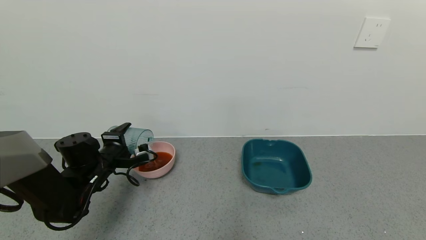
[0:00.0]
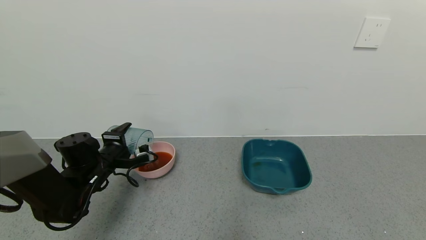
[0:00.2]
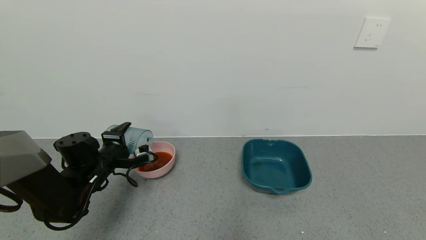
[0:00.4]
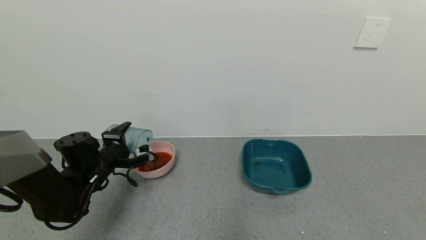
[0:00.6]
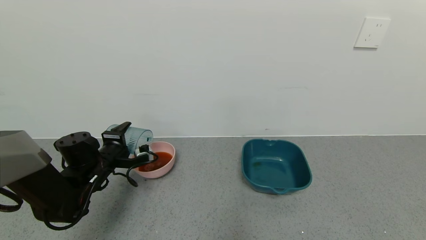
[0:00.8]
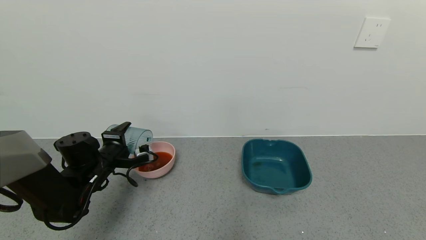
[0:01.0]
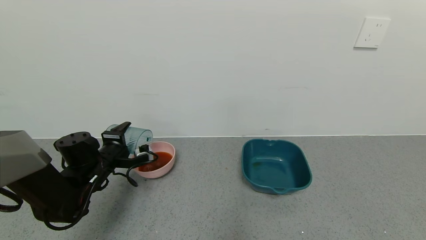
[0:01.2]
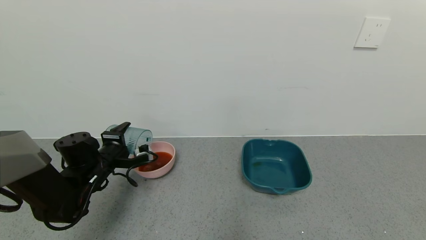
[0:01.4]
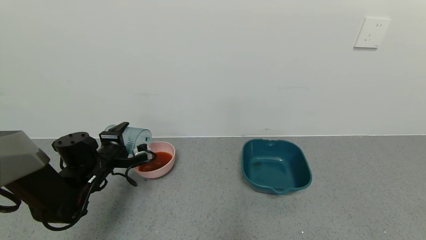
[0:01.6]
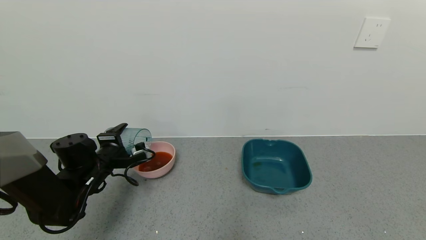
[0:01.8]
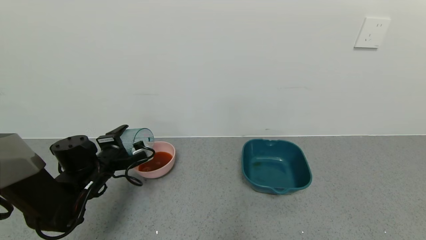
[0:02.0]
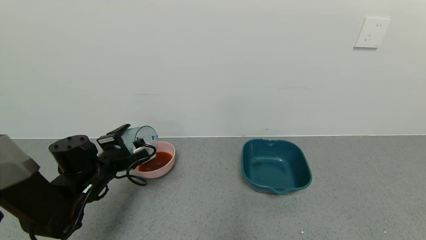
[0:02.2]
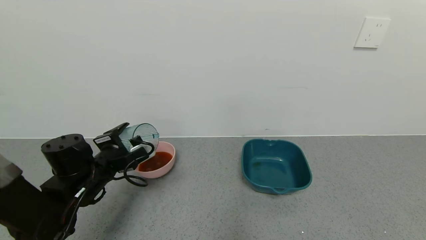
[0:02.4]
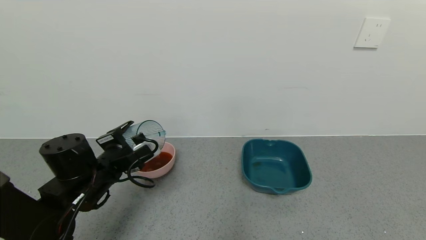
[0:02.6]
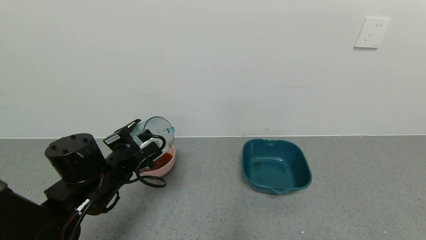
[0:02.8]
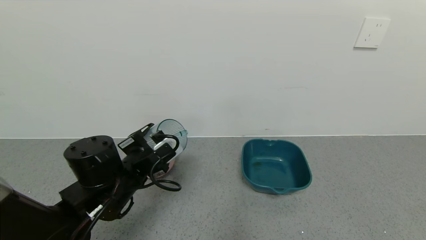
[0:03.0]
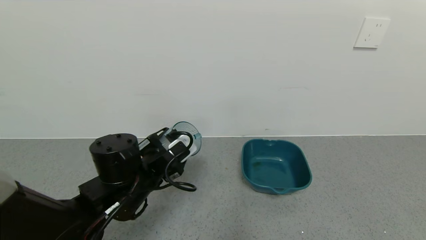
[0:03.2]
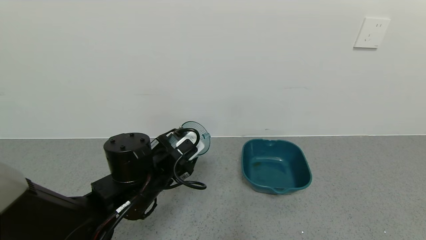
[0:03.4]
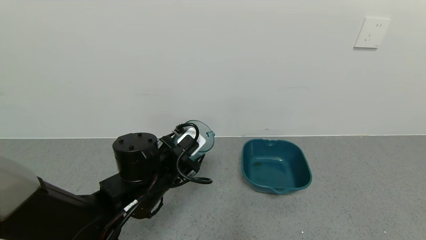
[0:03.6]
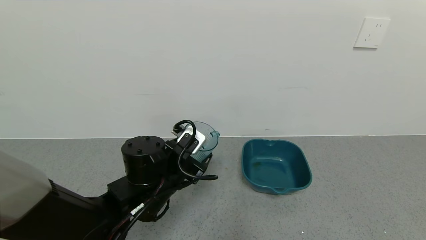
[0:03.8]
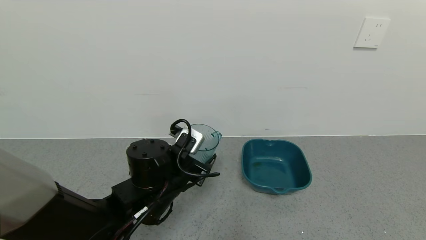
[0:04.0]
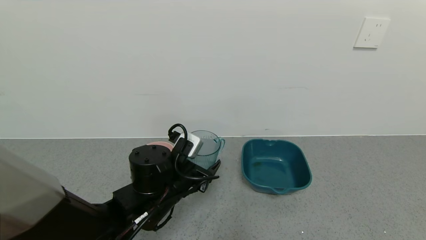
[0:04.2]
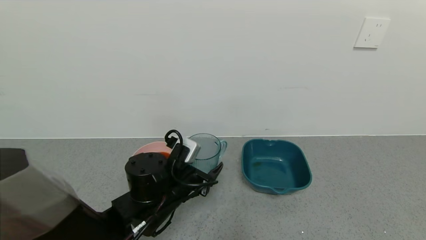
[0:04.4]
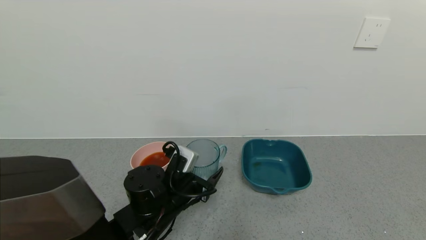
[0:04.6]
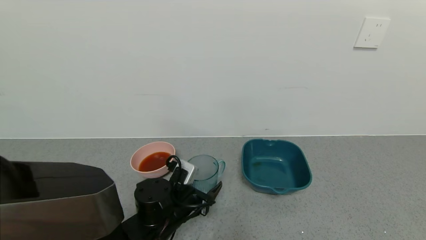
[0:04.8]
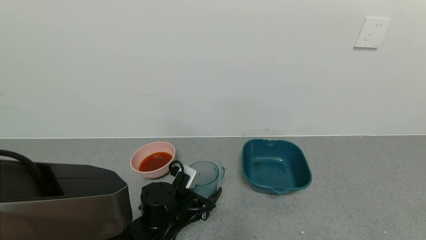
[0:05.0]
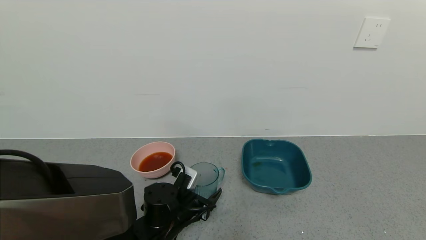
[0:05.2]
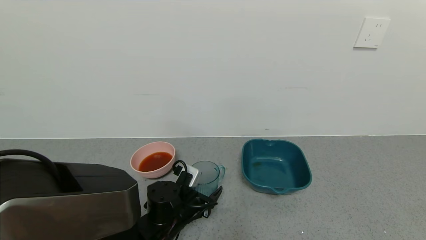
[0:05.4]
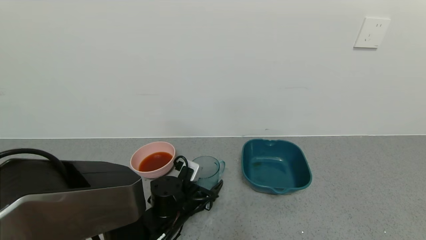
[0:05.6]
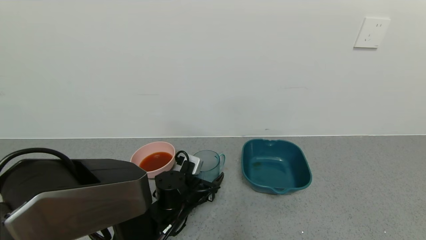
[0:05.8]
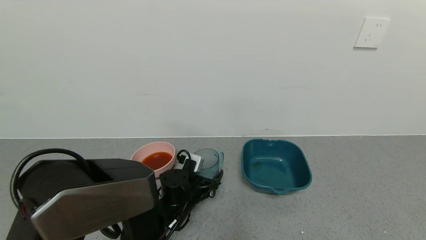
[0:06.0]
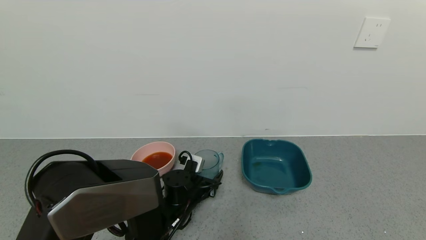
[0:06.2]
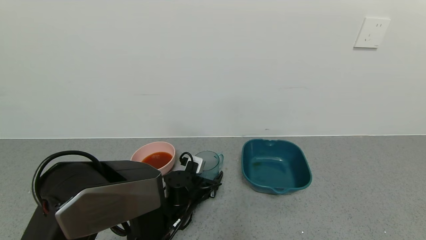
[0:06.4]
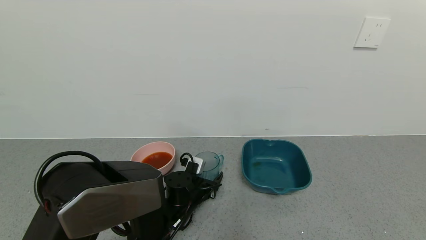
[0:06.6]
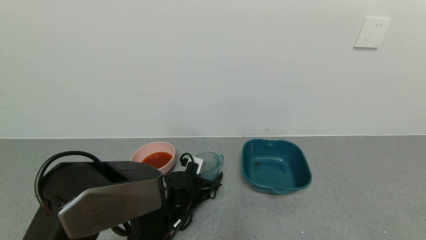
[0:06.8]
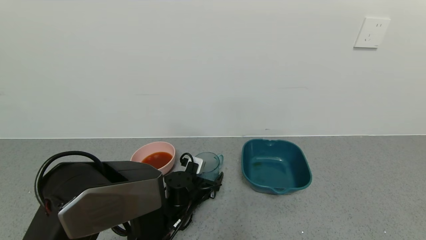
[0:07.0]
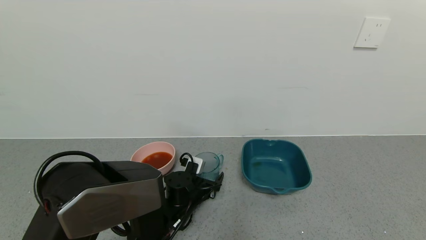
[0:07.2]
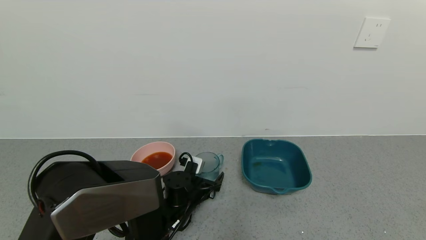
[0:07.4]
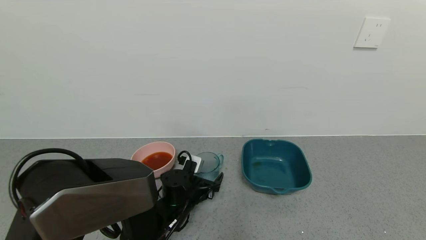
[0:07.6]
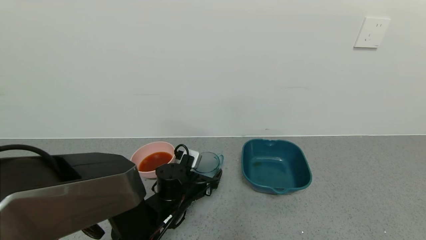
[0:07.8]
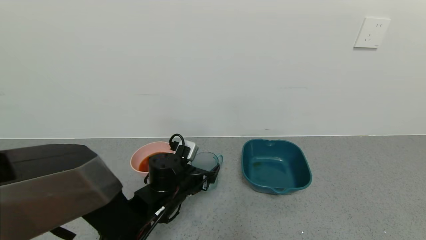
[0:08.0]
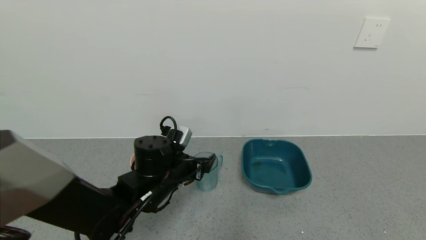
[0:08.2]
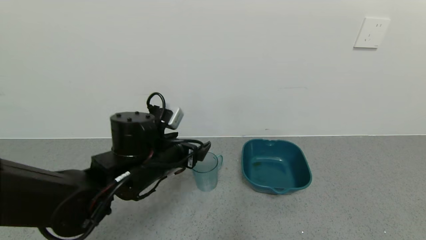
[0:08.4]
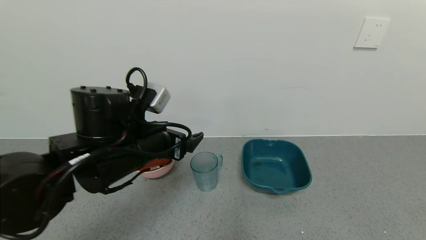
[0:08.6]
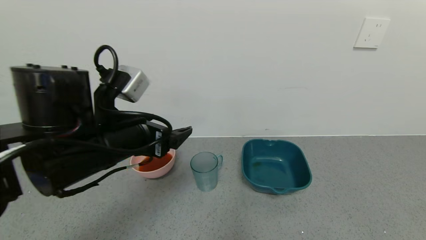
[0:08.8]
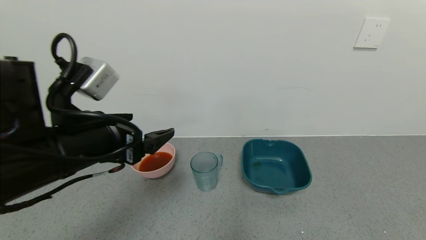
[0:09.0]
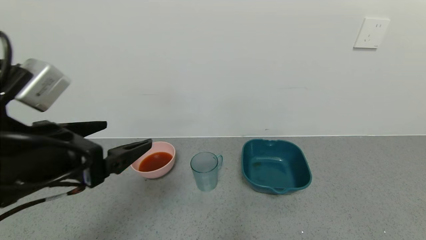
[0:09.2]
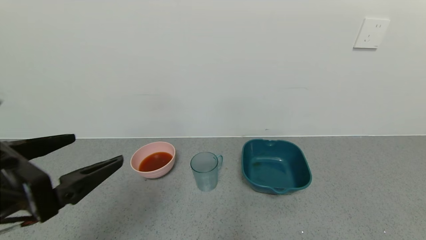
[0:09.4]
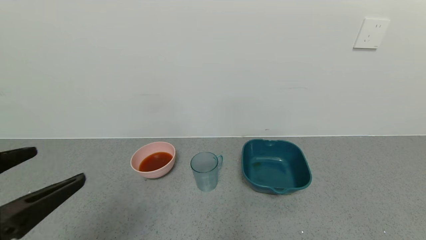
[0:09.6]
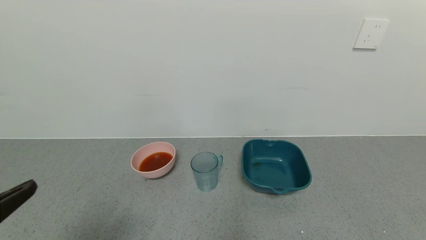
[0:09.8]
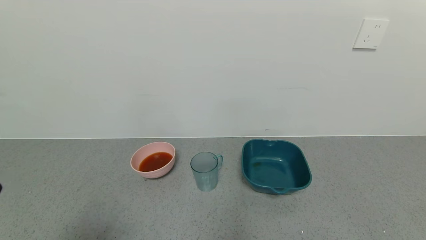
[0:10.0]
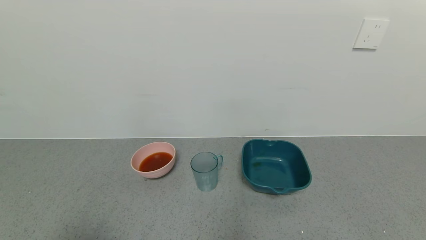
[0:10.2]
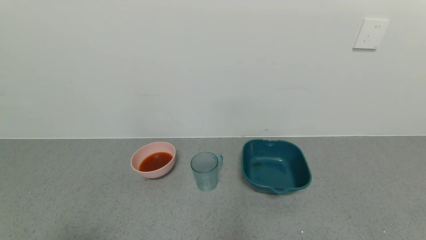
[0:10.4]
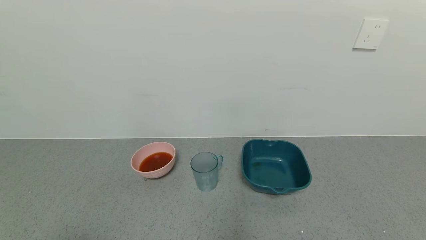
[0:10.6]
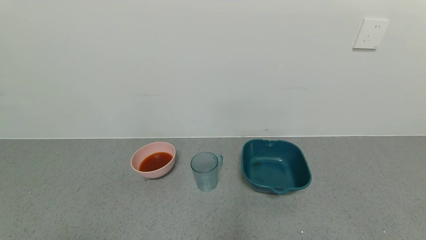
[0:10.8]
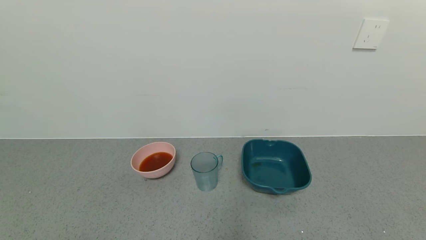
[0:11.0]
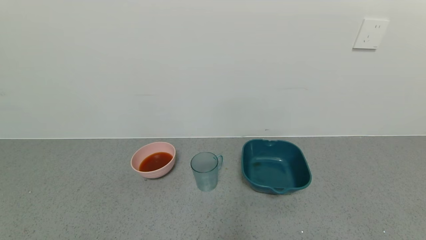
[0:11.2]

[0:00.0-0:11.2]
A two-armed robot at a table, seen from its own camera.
Task of the whole recording: use a gripper to pick up the cup and pour the liquid into a bowl or tray.
Step, 0:00.0 to 0:02.0: Pour the tea into the pink bowl with left gripper.
Step, 0:02.2 to 0:06.6: Place blue cup with tea on the table with left gripper.
0:00.0 to 0:01.6: The two grippers keep their place.
0:01.6 to 0:03.2: The left gripper heads to the right and backward, covering some 15 cm.
0:03.2 to 0:04.8: The left gripper travels downward by about 10 cm.
0:04.8 to 0:06.4: The left gripper moves forward and downward, about 10 cm.
0:06.4 to 0:08.0: The left gripper travels upward by about 5 cm, and opens its fingers.
0:08.0 to 0:09.6: The left gripper moves backward, upward and to the left, about 35 cm.
0:09.6 to 0:11.2: The left gripper goes roughly 15 cm backward.
